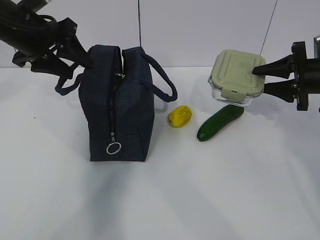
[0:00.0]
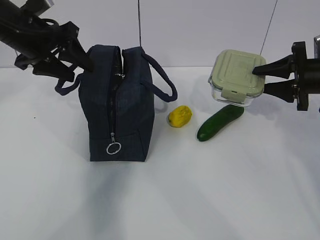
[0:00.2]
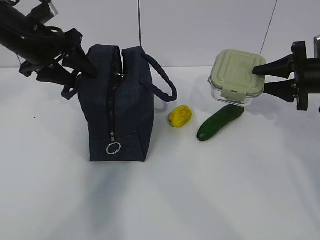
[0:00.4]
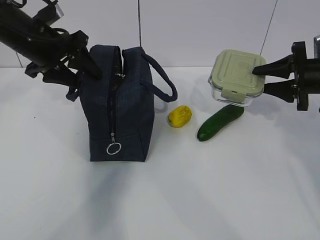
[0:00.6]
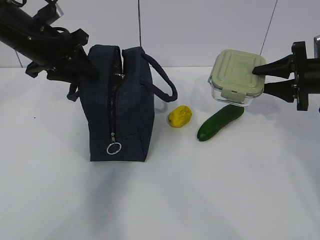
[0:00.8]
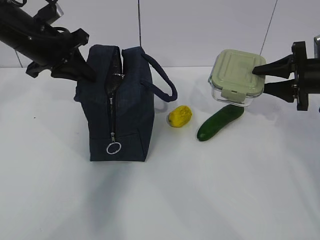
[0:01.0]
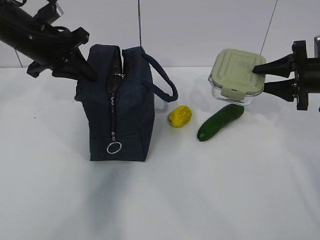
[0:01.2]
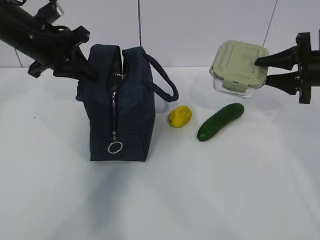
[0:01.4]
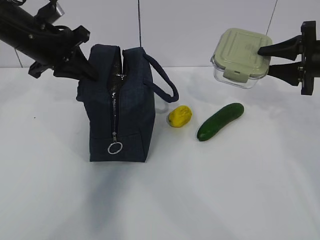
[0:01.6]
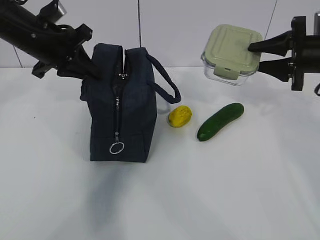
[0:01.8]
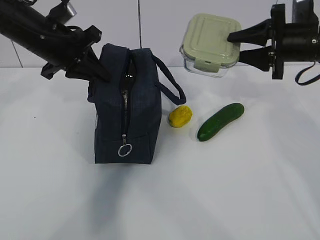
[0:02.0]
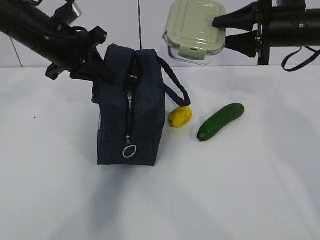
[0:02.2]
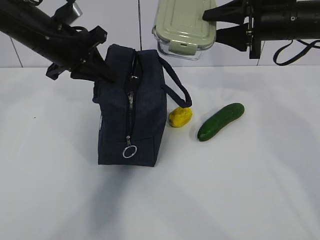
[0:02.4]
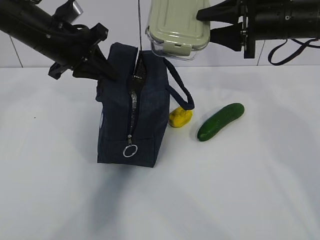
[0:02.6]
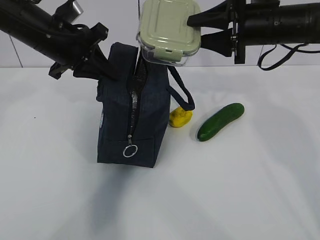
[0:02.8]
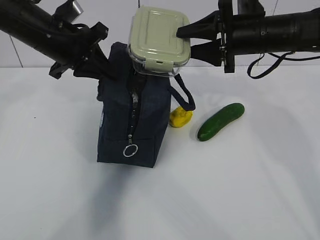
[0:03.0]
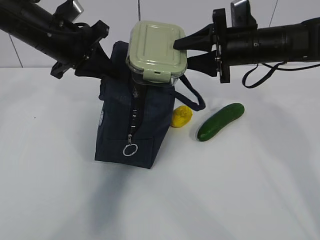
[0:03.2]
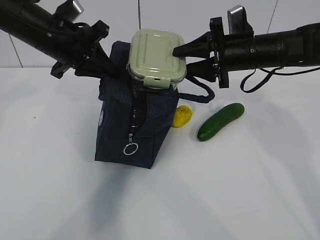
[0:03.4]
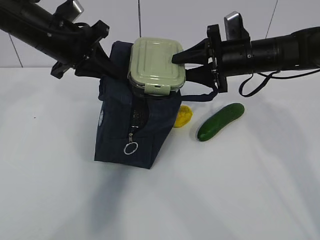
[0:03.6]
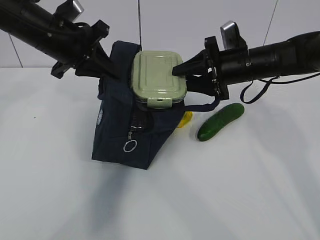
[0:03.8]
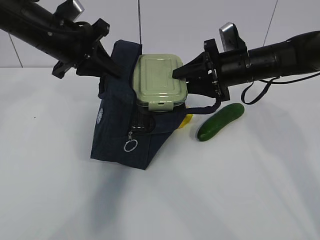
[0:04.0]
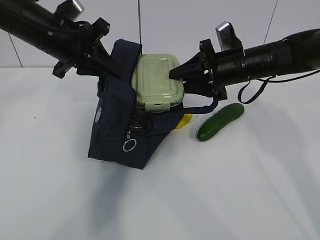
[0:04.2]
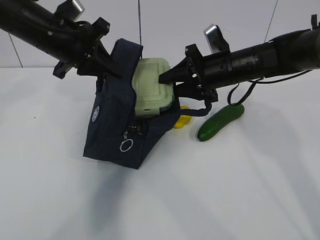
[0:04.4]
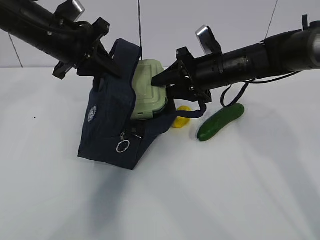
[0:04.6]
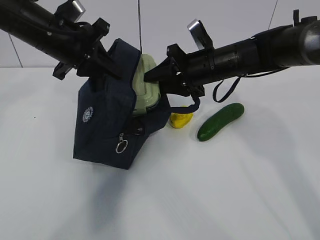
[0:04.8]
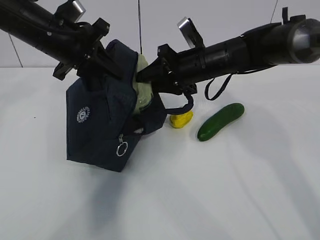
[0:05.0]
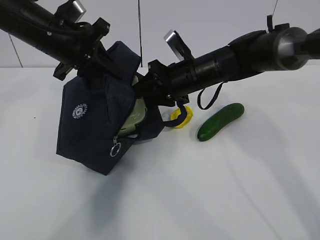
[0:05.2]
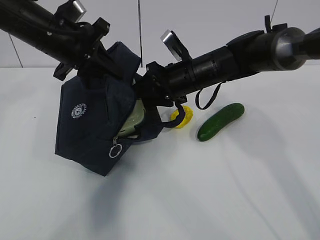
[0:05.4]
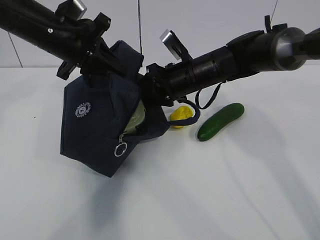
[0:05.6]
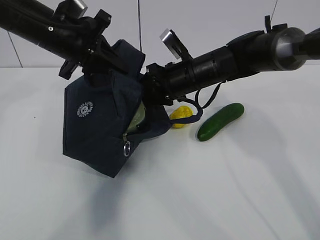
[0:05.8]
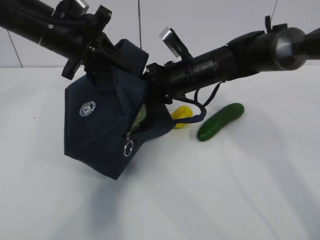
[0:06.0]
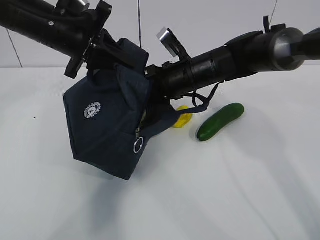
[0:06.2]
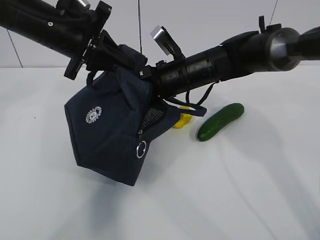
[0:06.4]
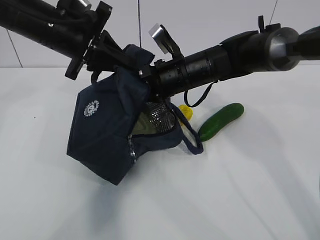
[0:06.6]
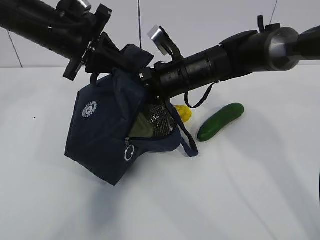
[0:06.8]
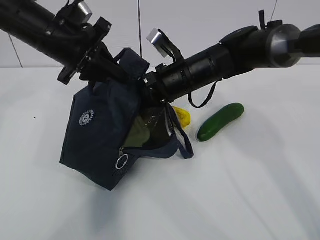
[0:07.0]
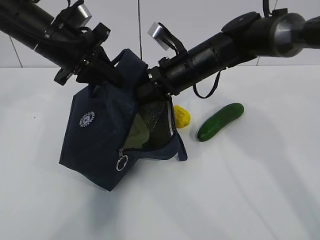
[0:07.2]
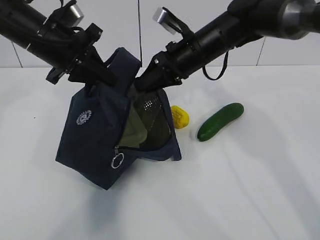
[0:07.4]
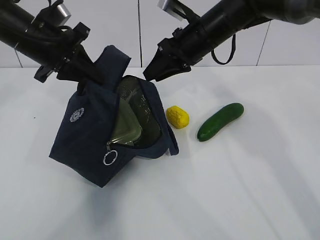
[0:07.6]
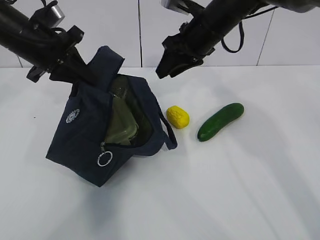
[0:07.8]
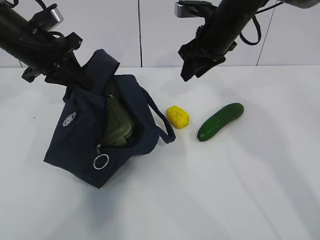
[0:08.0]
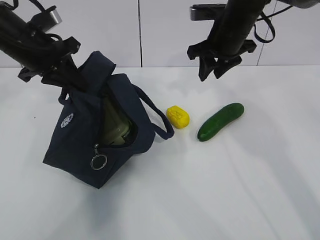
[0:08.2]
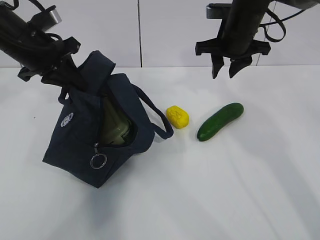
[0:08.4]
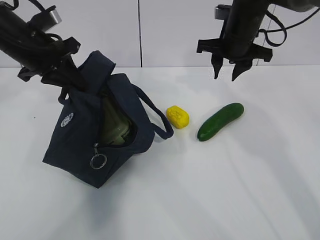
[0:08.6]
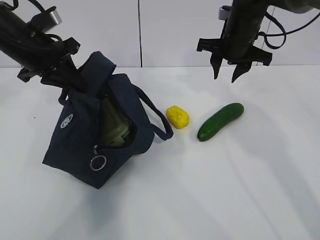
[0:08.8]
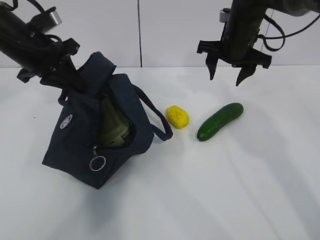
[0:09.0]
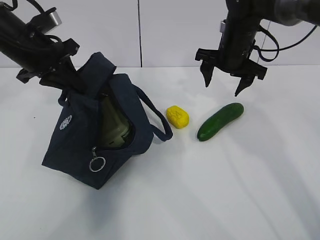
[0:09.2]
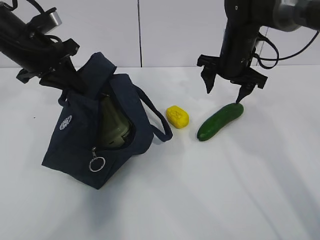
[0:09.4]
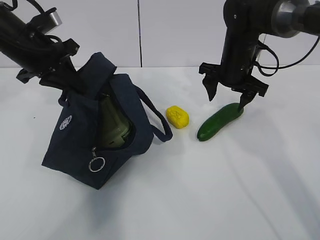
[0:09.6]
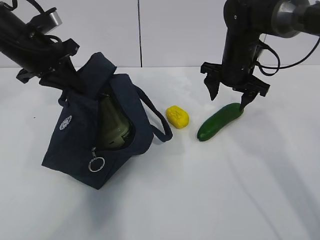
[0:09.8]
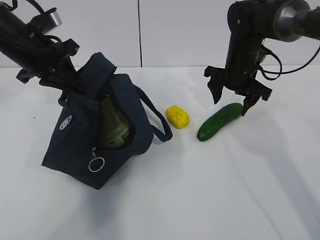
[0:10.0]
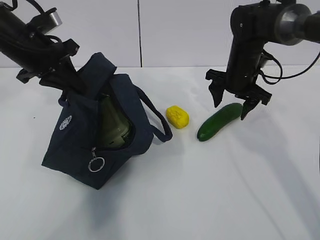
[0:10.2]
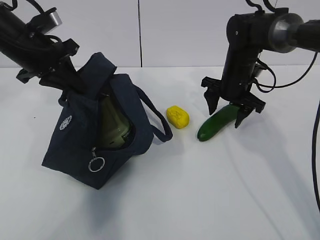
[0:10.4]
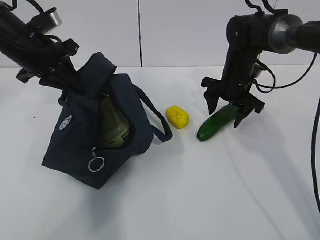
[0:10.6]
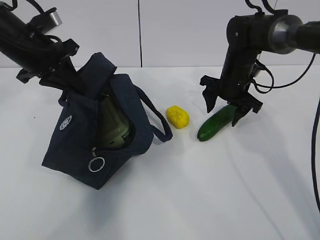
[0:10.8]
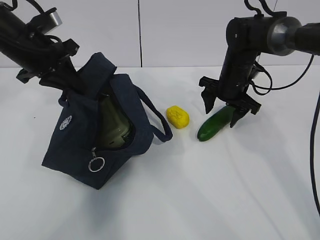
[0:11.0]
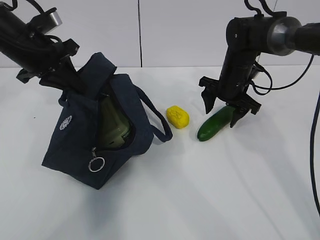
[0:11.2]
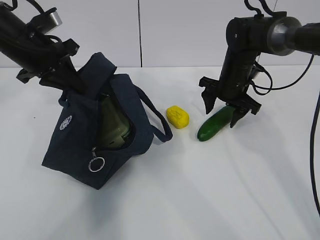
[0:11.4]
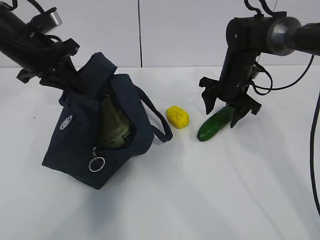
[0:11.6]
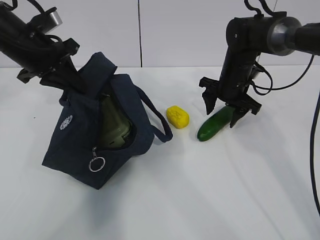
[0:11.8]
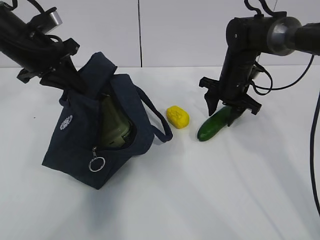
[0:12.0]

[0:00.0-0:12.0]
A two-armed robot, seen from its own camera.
Step, 0:00.0 to 0:01.8: Place it into the bag with your right hand.
Step, 0:02.0 to 0:06.4: Grab the cucumber with your right hand.
Step, 0:06.6 to 0:10.0: Place it into the bag with your right hand.
0:00.0 to 0:01.6: The left gripper closes up.
0:01.6 to 0:03.0: The right gripper moves to the left, roughly 15 cm.
0:03.0 to 0:04.4: The right gripper goes some 5 cm downward.
0:04.4 to 0:06.0: The right gripper is displaced to the left by some 5 cm.
0:06.0 to 0:07.6: The right gripper heads upward, covering approximately 5 cm.
0:07.6 to 0:09.0: The right gripper moves to the right, some 5 cm.
0:09.0 to 0:10.4: The right gripper moves downward, some 10 cm.
0:10.4 to 0:12.0: Both grippers stay put.

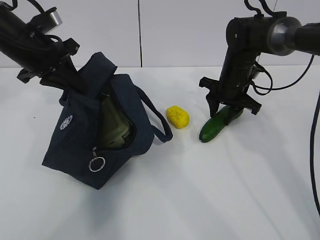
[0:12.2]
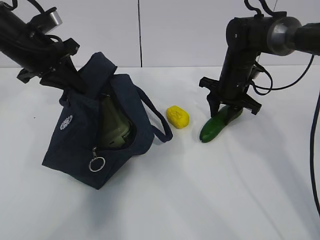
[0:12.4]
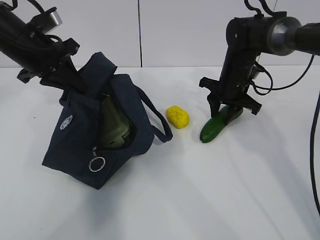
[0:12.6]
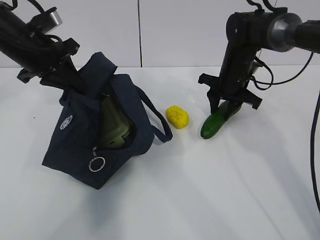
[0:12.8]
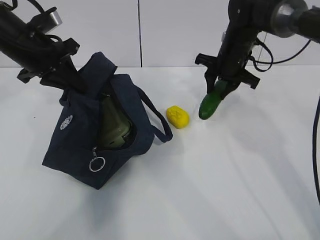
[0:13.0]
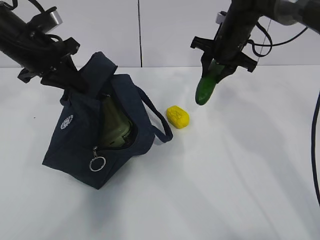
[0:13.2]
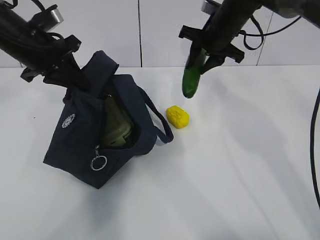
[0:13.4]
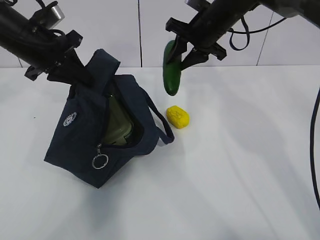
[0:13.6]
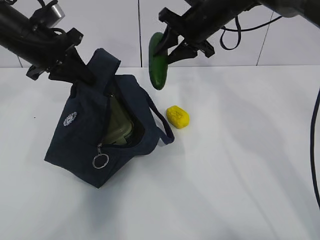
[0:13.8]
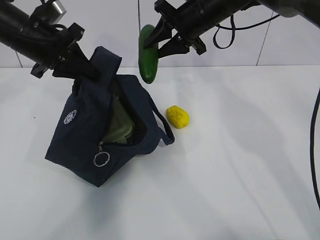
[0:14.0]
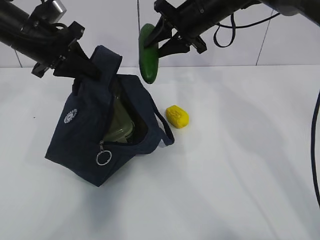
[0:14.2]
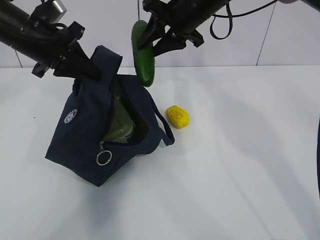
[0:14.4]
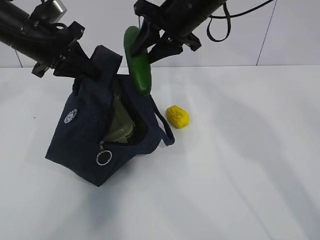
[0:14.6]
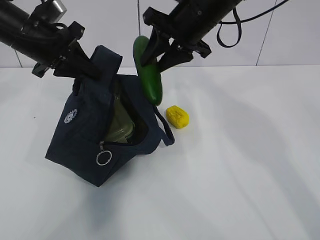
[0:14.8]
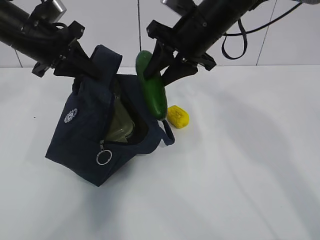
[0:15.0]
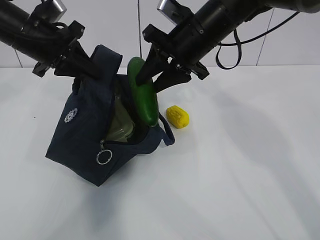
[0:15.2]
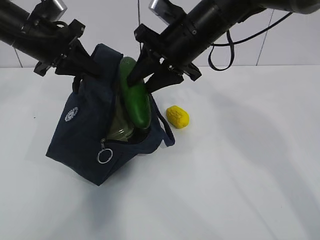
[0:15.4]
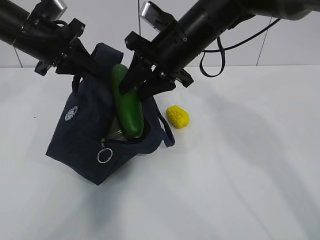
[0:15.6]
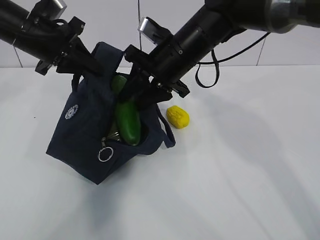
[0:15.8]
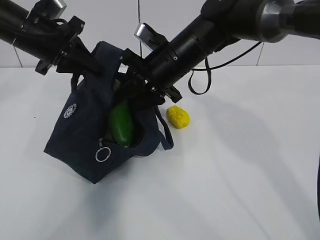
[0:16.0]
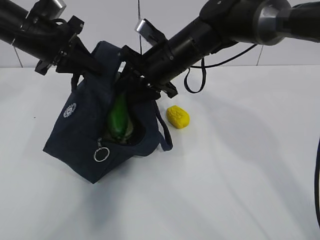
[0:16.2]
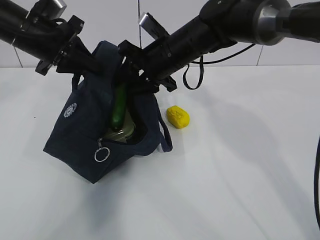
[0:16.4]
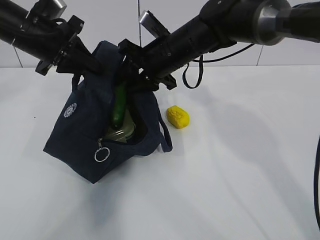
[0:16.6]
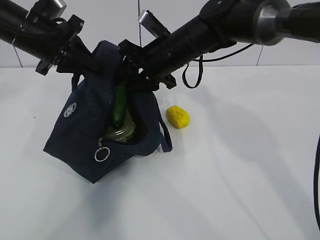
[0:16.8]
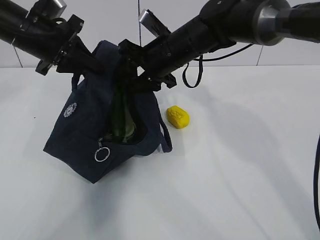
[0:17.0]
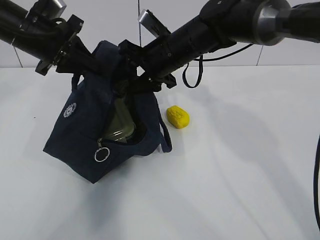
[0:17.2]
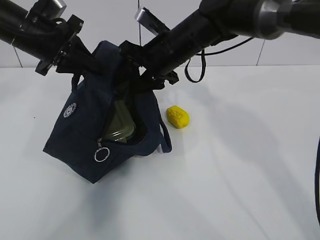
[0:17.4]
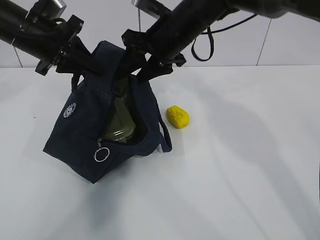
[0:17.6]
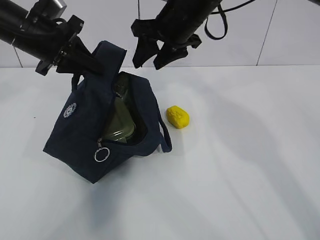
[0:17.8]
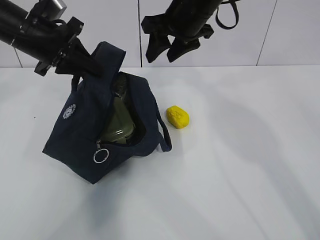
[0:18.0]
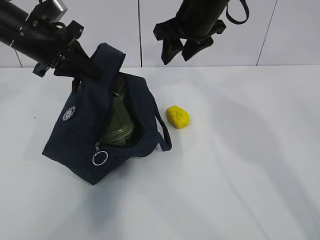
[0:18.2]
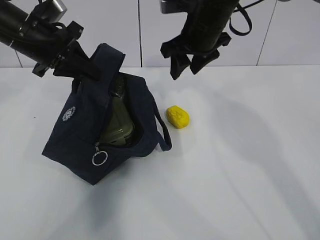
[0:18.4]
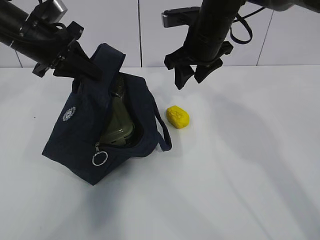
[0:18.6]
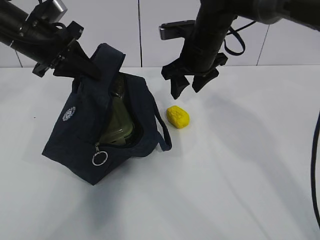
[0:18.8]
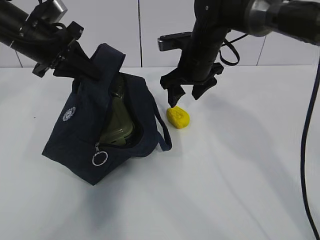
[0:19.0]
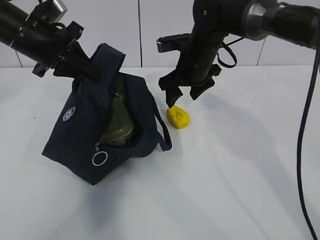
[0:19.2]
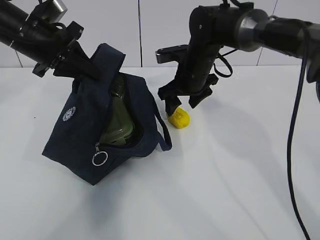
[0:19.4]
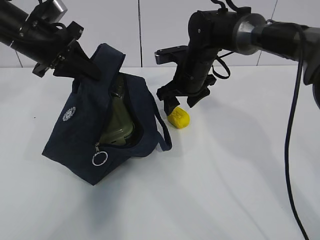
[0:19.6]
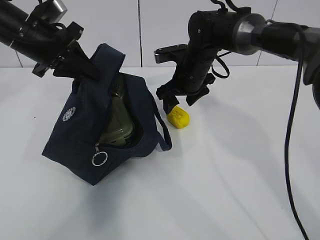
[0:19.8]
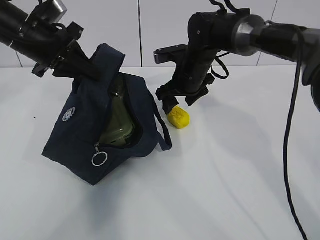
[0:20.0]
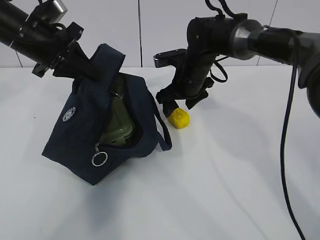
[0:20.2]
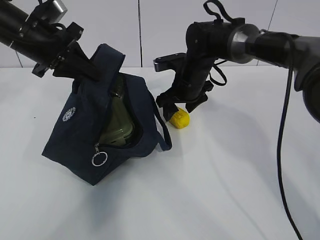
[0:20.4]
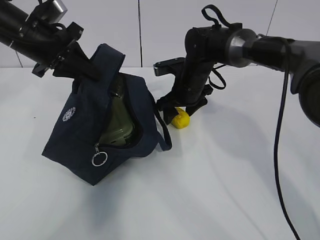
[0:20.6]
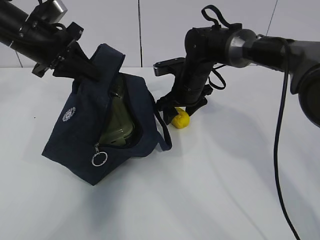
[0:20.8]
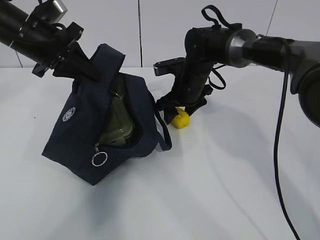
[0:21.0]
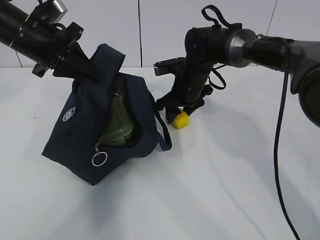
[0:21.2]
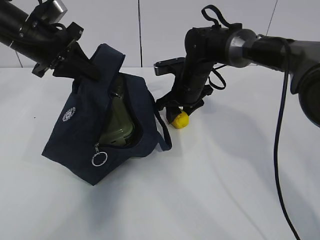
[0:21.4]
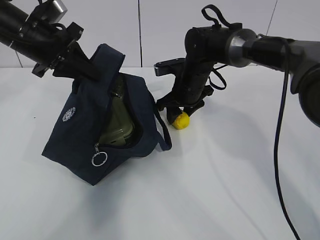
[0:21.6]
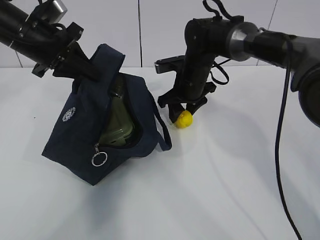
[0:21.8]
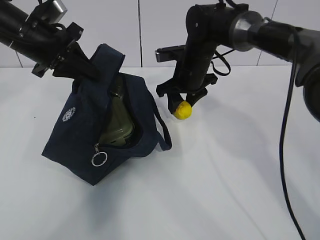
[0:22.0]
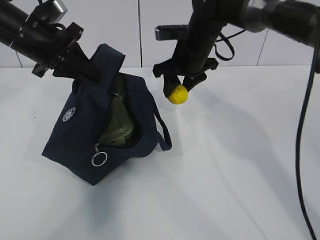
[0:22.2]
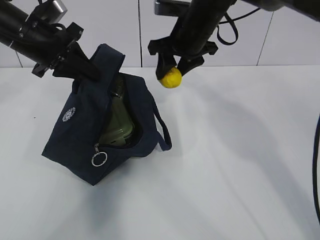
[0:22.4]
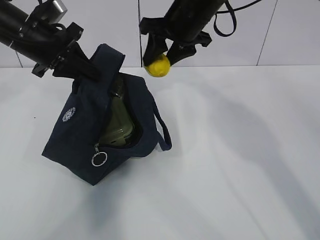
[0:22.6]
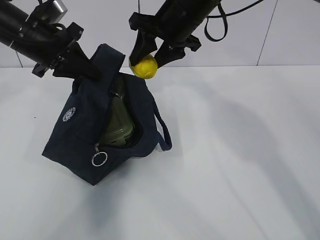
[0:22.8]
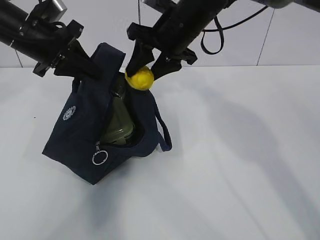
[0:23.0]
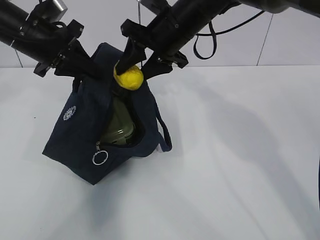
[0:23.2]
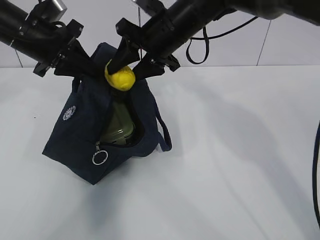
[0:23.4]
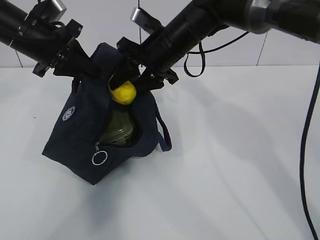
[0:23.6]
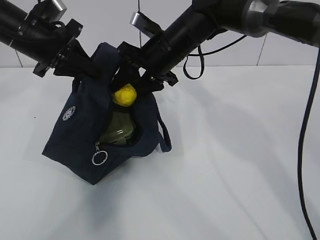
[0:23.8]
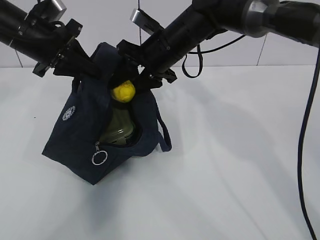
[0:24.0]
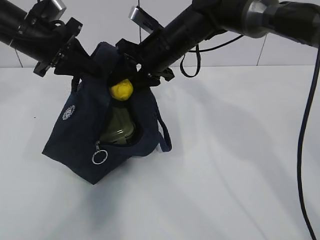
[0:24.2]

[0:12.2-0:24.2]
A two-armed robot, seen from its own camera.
Step, 0:16.8 to 0:19.4: Grab the lunch bag with your right hand.
Step, 0:19.6 to 0:23.6: Move the lunch bag to the right.
0:12.2 to 0:13.8: The right gripper shifts some 15 cm upward and to the left.
0:13.8 to 0:15.2: The right gripper is displaced backward by approximately 10 cm.
0:15.2 to 0:16.6: The right gripper changes place by approximately 5 cm.
0:16.6 to 0:18.2: The right gripper shifts about 5 cm upward.
0:18.2 to 0:19.8: The right gripper shifts approximately 15 cm downward.
0:19.8 to 0:21.2: The grippers make only small movements.
0:21.2 to 0:22.6: The right gripper travels upward by approximately 15 cm.
0:22.6 to 0:24.2: The right gripper travels downward by roughly 5 cm.
